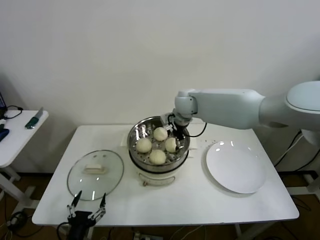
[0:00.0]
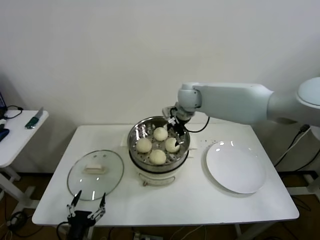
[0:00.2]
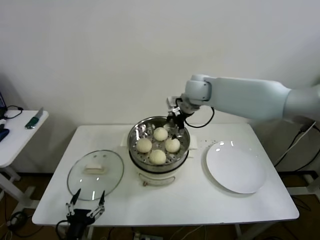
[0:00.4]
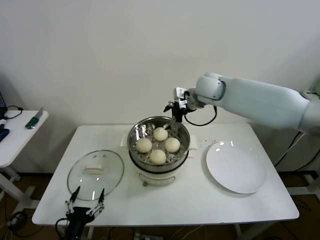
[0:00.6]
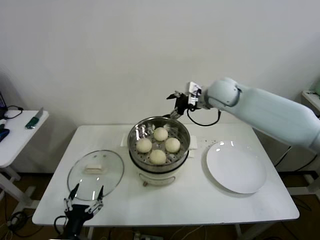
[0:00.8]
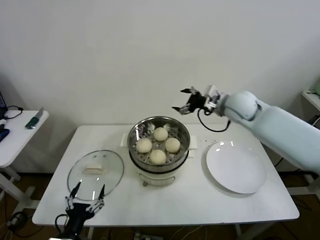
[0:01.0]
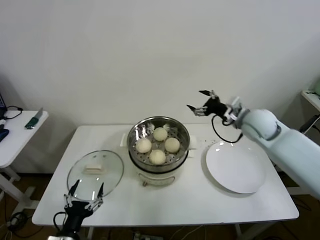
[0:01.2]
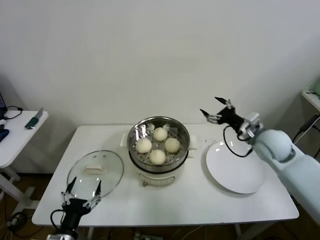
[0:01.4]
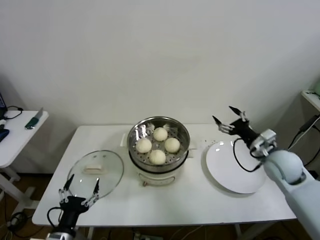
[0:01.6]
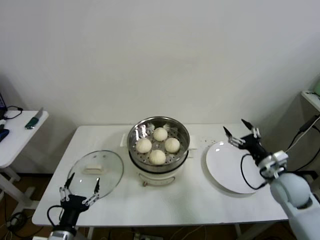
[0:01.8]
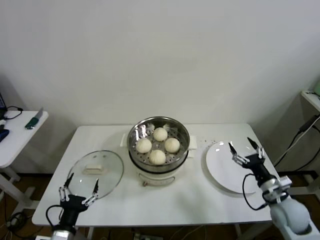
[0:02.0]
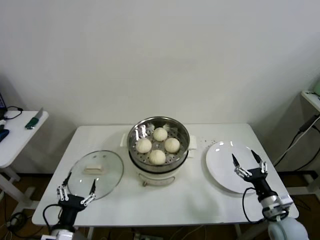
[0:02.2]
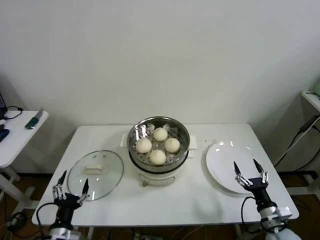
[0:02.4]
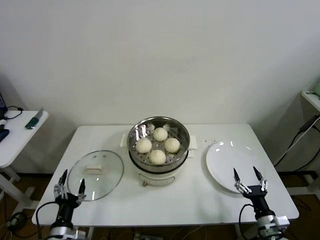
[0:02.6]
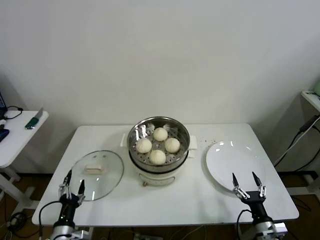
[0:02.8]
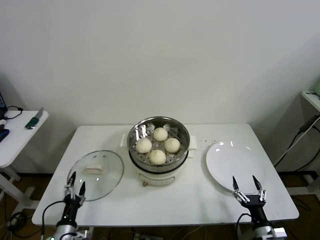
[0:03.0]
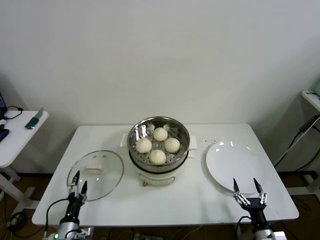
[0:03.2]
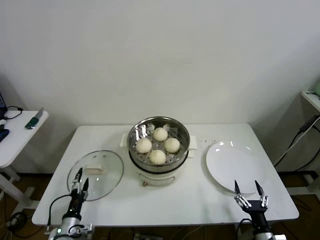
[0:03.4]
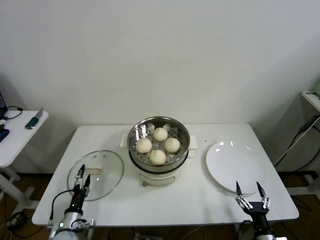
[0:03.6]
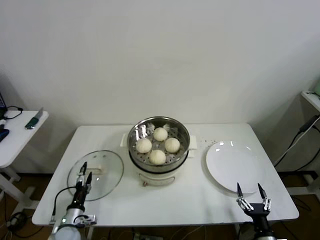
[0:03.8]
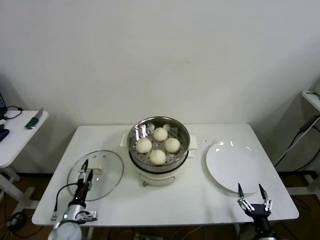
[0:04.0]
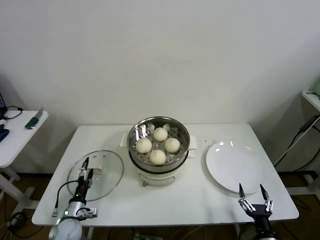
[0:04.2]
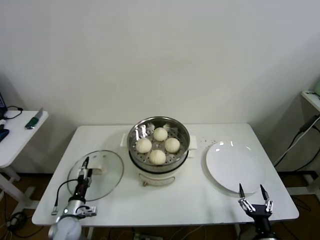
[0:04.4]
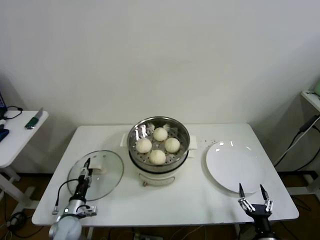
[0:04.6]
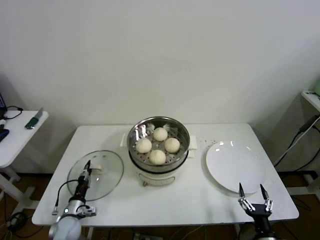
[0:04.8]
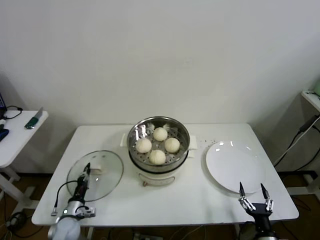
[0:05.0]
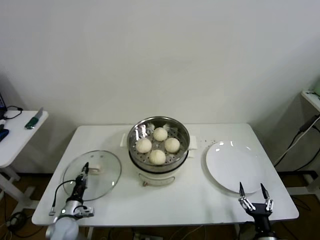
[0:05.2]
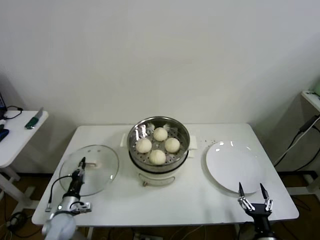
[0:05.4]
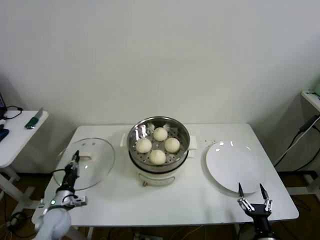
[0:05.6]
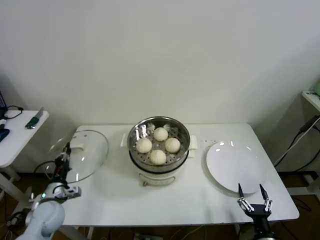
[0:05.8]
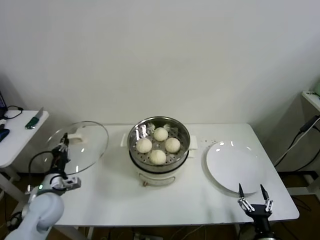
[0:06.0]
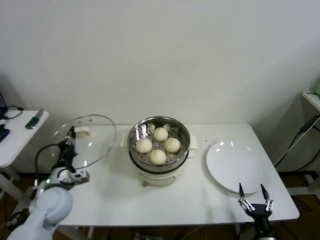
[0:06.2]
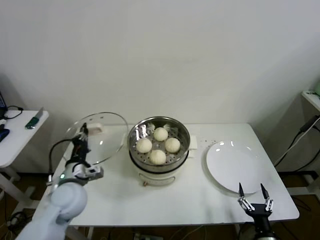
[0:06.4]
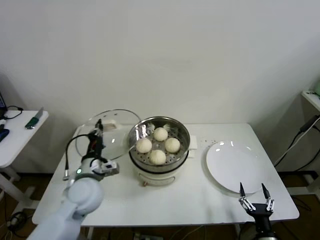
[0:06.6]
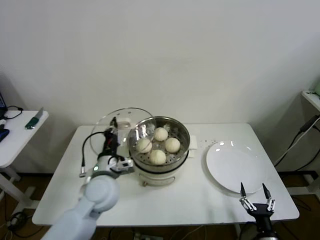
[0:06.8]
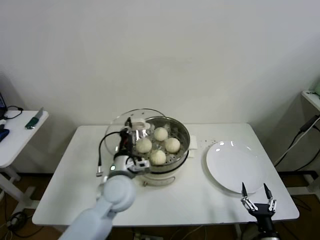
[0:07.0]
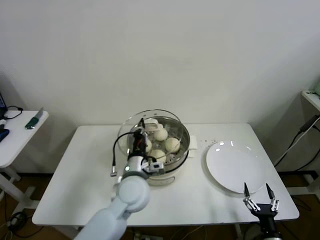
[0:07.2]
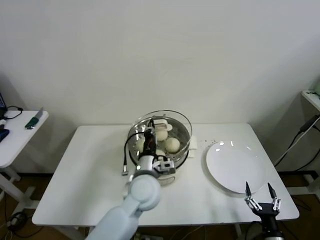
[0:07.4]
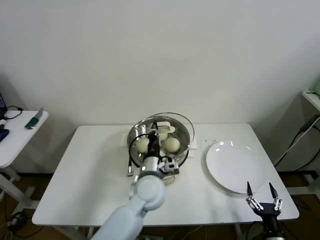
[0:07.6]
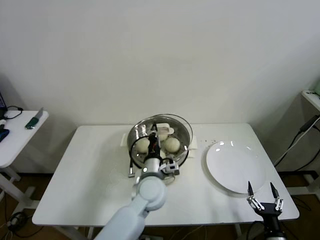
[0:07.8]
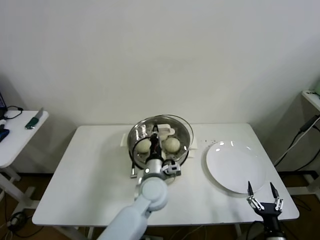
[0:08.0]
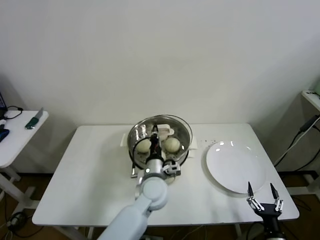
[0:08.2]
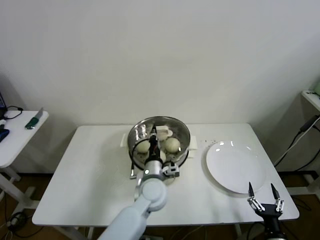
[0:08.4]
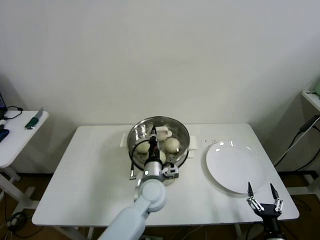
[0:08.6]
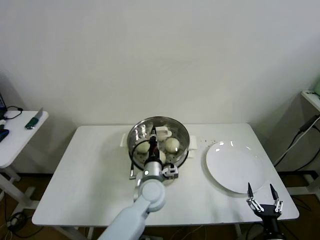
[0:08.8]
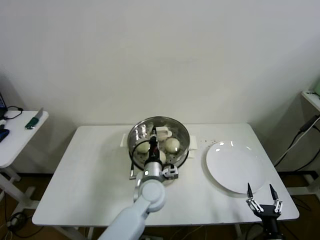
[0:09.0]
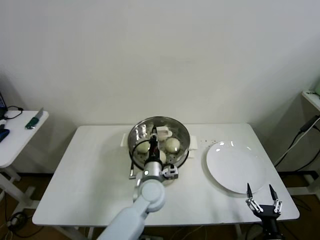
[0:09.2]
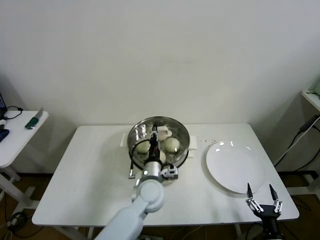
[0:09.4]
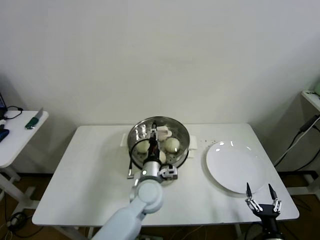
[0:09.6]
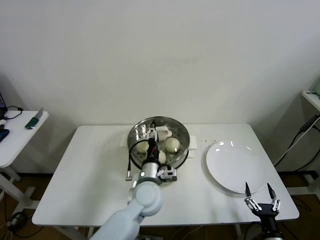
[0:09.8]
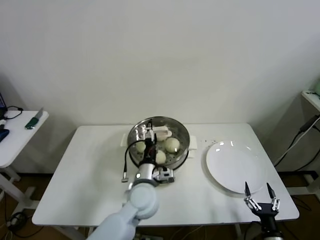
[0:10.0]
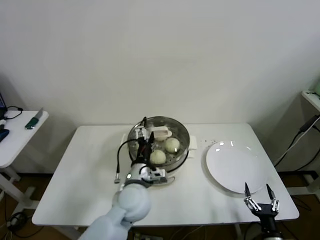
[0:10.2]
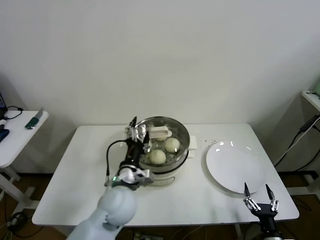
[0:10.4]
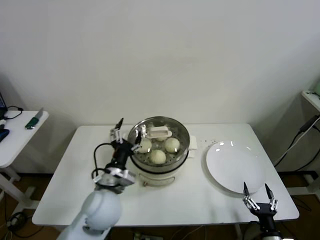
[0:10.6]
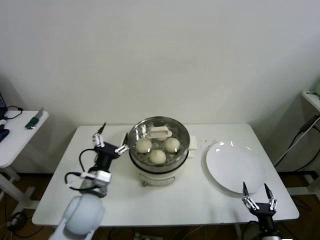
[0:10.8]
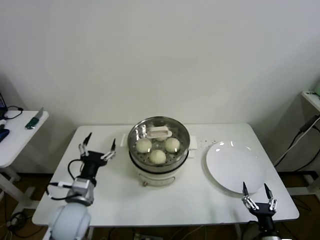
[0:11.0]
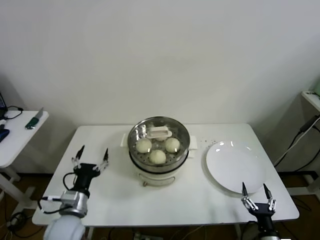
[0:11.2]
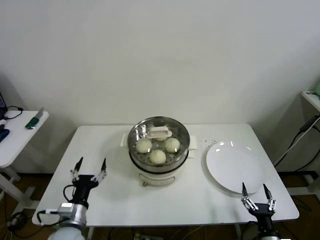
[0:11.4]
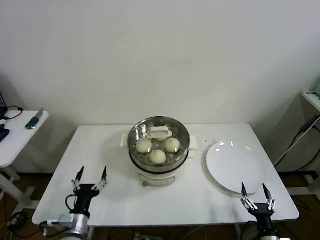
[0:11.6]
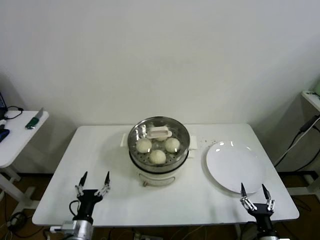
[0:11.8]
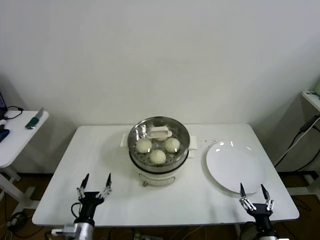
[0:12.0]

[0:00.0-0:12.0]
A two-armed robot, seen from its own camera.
Step, 0.0 to 5.0 s: Grasp the pot lid with left gripper.
Step, 5.2 to 9.0 s: Place the pot lid on the steamer with left gripper.
0.0 to 1.6 s: The right gripper moves to the right and backward, some 30 cm.
1.6 to 3.0 s: The right gripper shifts roughly 30 cm downward and backward. Meanwhile the left gripper shifts roughly 10 cm downward.
3.0 to 4.4 s: The left gripper goes about 10 cm forward.
4.4 to 6.0 s: The left gripper moves upward, about 15 cm, and closes its fingers.
6.0 to 7.6 s: The left gripper heads to the right, covering some 35 cm.
7.6 to 9.0 s: The left gripper heads downward, covering about 5 cm.
9.0 to 10.4 s: The left gripper shifts approximately 10 cm to the left and upward, and opens its fingers.
10.4 to 12.0 s: The left gripper shifts roughly 25 cm to the left, downward and backward.

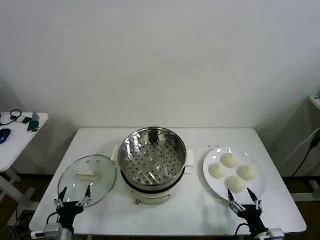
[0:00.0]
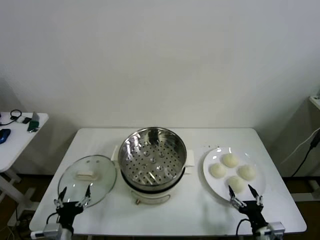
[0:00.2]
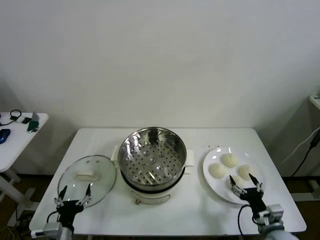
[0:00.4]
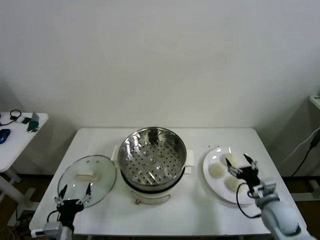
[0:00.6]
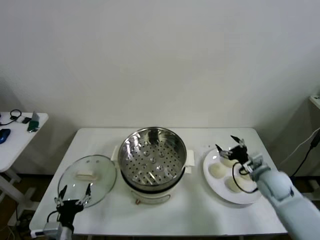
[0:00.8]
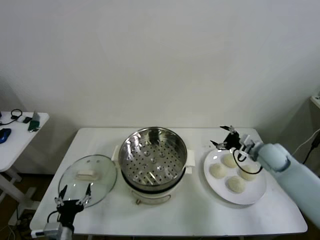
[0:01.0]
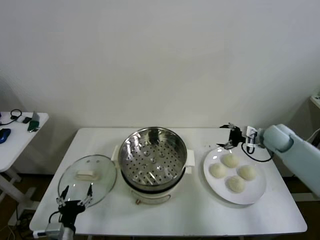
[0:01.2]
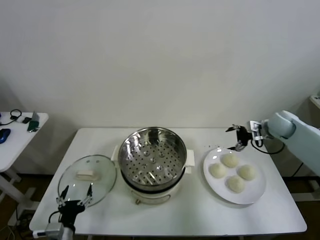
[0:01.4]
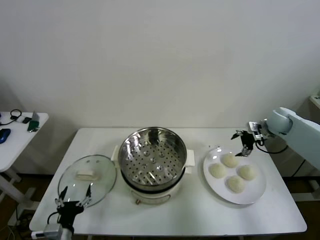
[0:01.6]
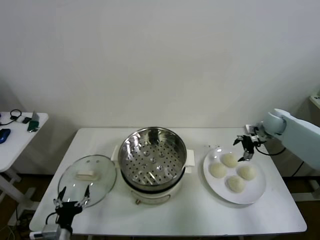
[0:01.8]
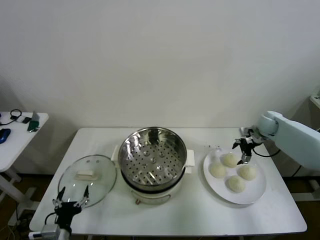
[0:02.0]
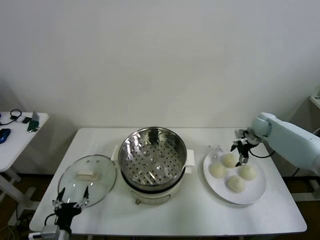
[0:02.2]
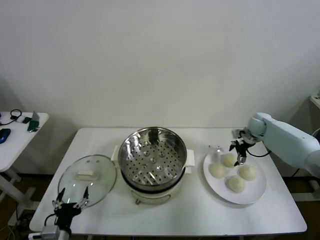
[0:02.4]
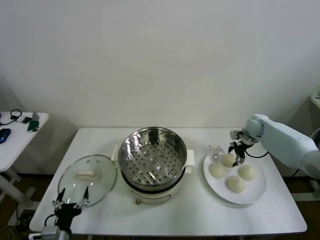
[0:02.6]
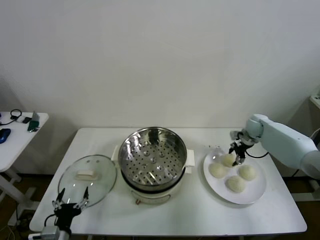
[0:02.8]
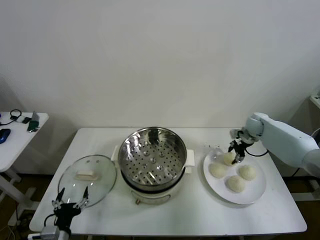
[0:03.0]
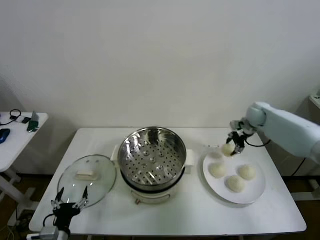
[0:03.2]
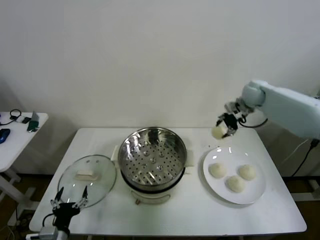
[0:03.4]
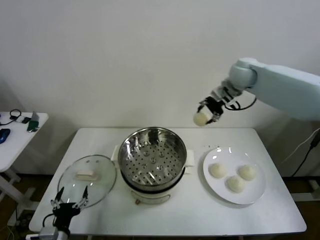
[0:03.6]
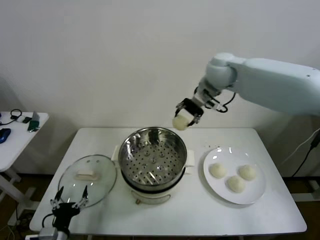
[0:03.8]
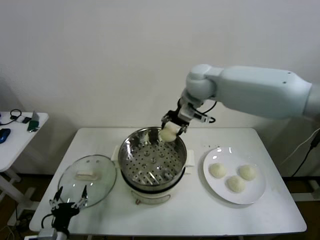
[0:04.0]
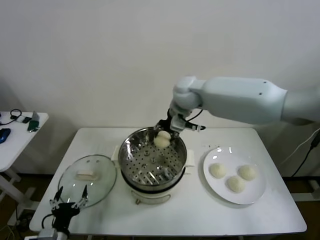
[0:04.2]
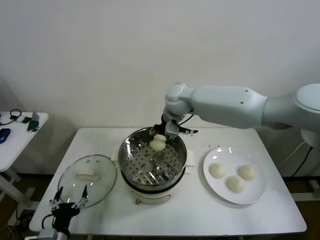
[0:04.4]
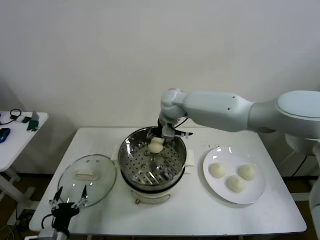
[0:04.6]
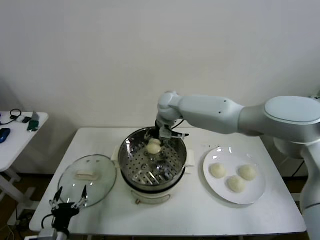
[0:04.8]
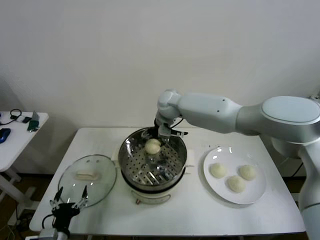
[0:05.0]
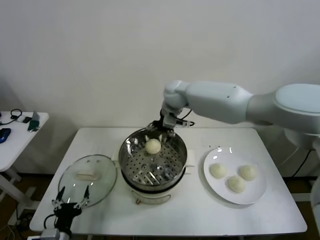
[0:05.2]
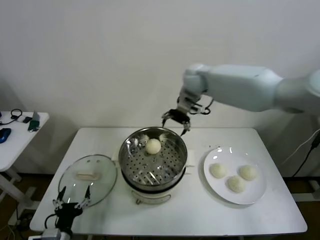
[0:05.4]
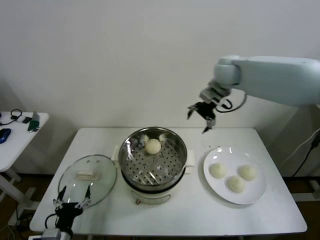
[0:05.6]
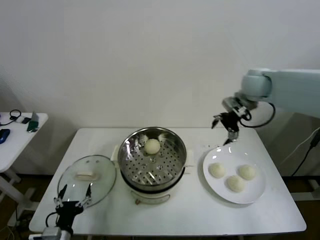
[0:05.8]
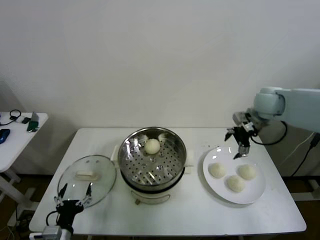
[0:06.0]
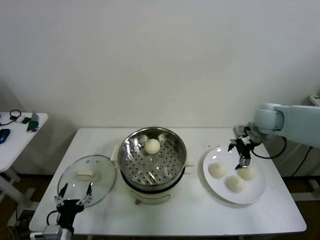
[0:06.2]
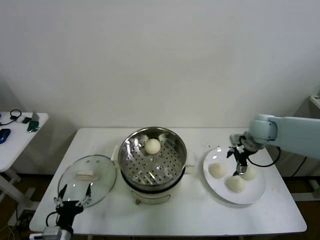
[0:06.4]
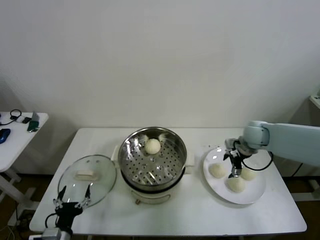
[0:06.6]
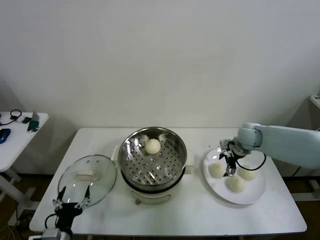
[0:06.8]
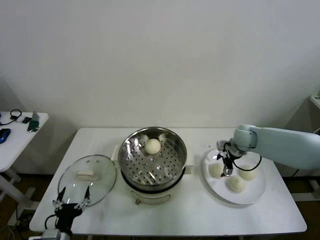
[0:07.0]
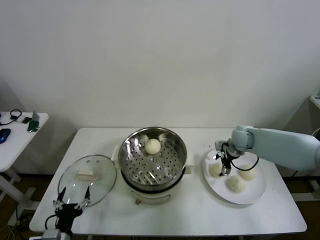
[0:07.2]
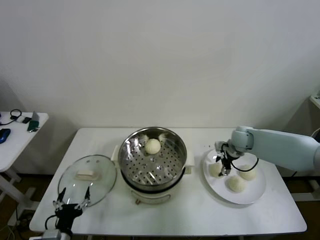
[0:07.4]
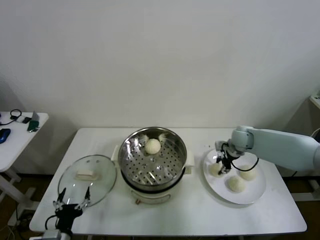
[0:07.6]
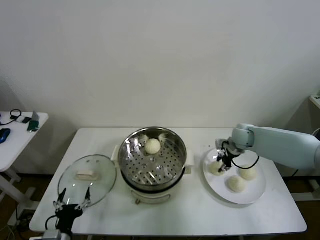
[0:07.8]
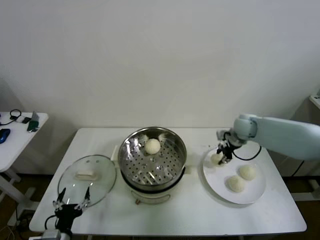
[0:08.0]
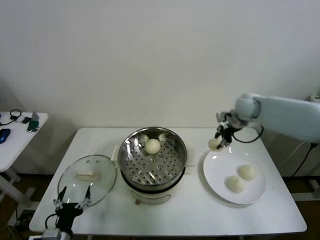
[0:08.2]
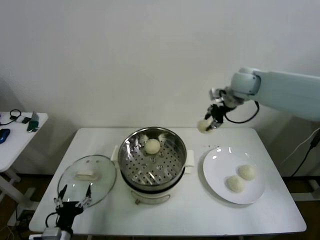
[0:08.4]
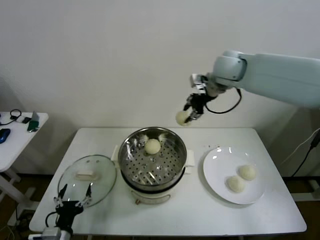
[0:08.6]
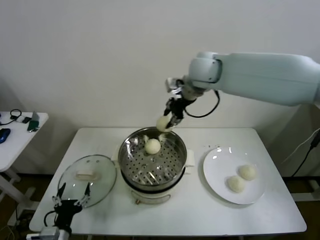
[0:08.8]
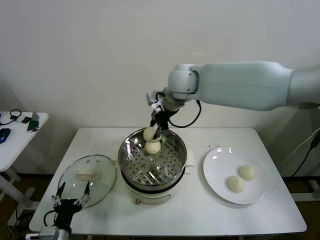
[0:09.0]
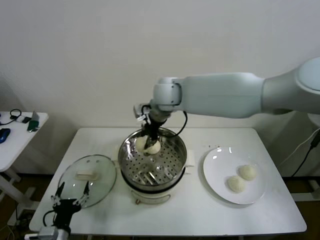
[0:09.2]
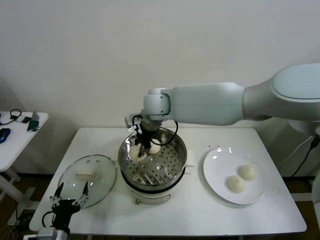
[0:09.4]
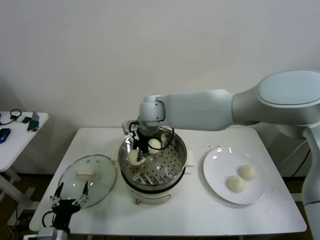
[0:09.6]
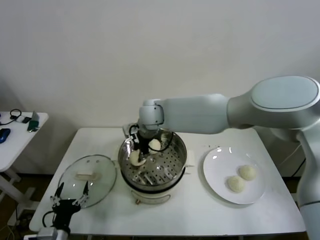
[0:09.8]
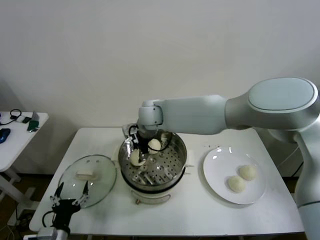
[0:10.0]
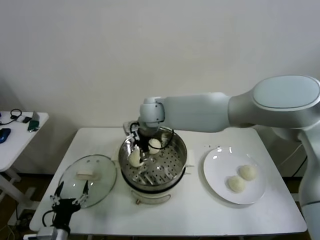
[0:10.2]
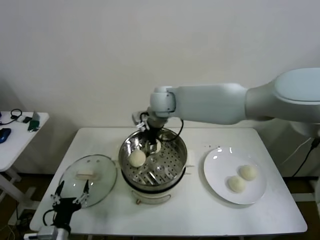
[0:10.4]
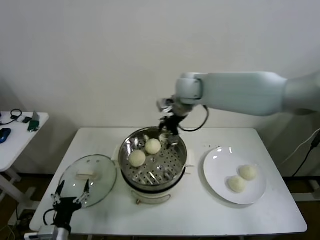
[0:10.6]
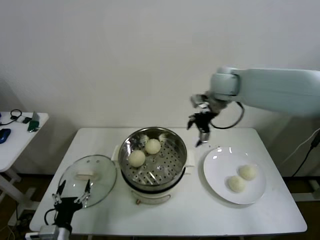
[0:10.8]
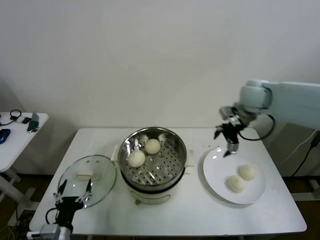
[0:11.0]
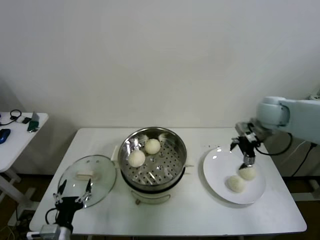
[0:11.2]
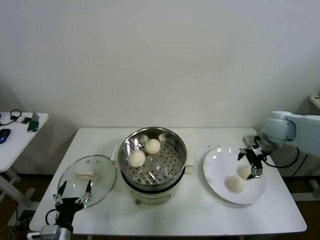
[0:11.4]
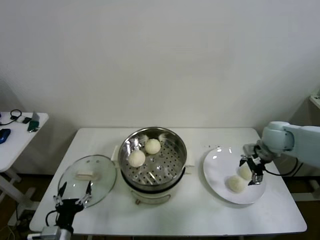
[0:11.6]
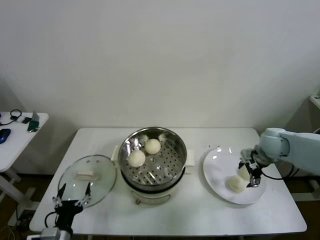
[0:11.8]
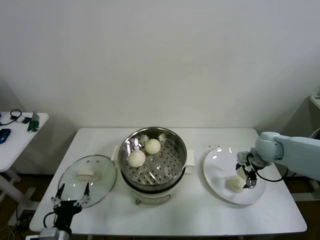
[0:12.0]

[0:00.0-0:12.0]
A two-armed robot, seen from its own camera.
Step, 0.0 to 2.8 s: Grasp the baozi in the plate with right gripper.
Step, 3.0 to 5.0 s: Place the baozi on the steamer with right gripper.
Step, 5.2 to 7.6 s: Grasp the baozi in the plate with right gripper.
Step, 7.8 to 10.0 s: Place the baozi on the steamer with right gripper.
1.6 to 3.0 s: The right gripper moves about 5 cm, and closes.
3.0 to 4.4 s: The right gripper is displaced to the left by approximately 35 cm.
4.4 to 6.0 s: The right gripper is displaced to the right by roughly 30 cm, and opens up.
6.0 to 7.6 s: The right gripper moves downward, roughly 15 cm, and closes its fingers.
7.6 to 9.0 s: The right gripper heads to the left and upward, covering about 35 cm.
9.0 to 10.4 s: The right gripper opens.
10.4 to 12.0 s: The right gripper shifts approximately 40 cm to the right and downward.
